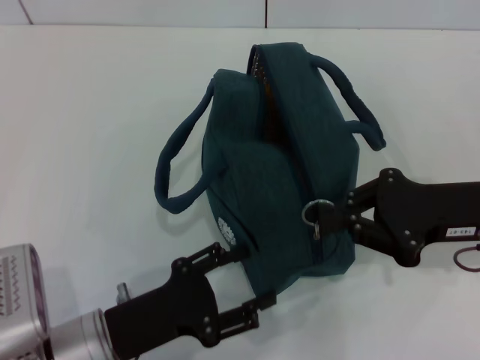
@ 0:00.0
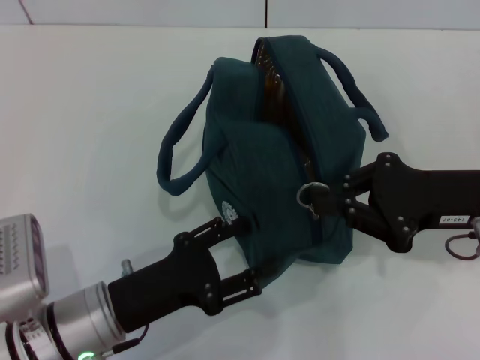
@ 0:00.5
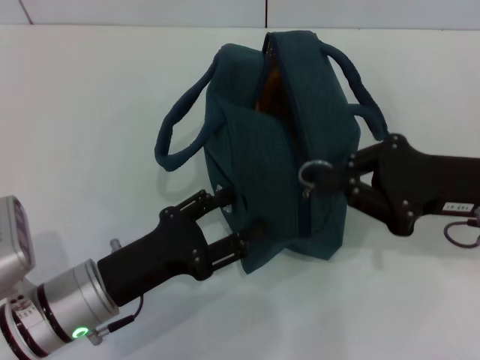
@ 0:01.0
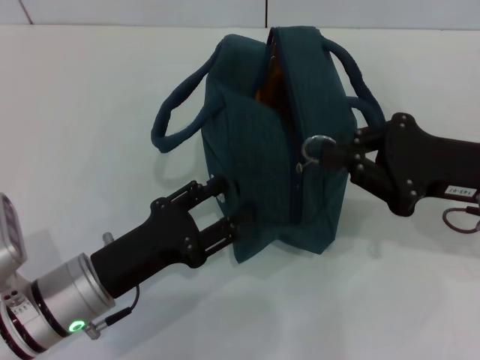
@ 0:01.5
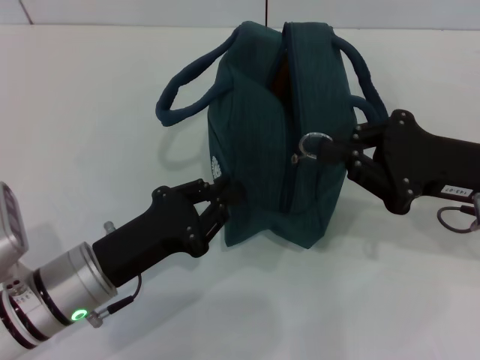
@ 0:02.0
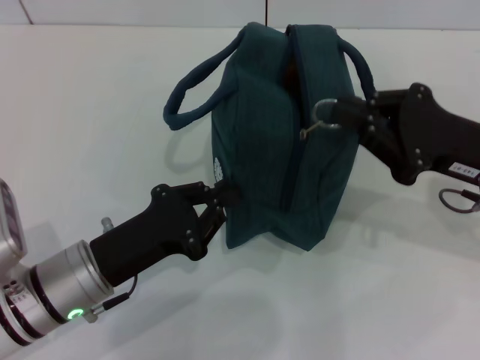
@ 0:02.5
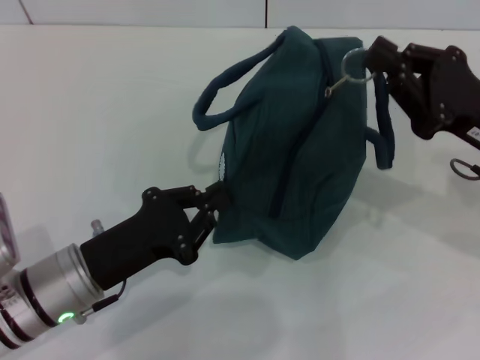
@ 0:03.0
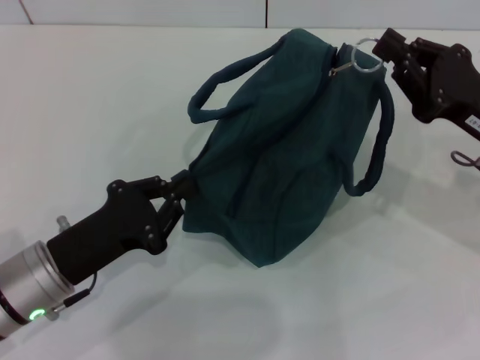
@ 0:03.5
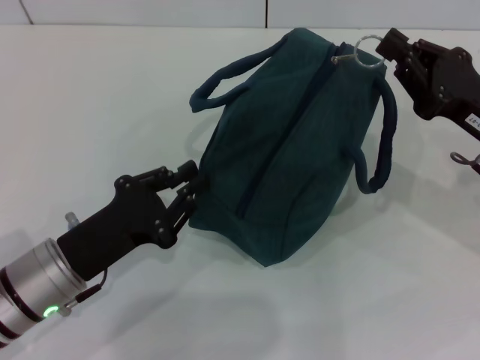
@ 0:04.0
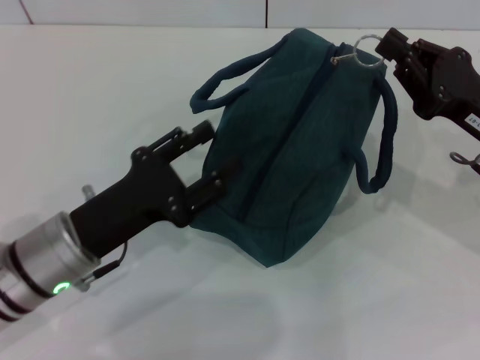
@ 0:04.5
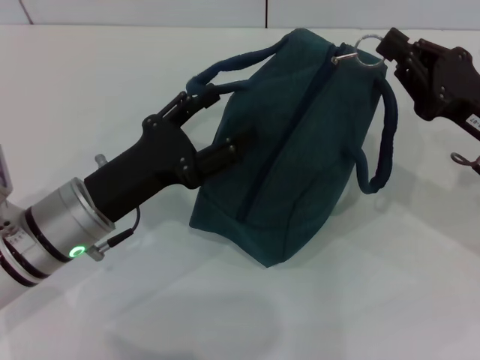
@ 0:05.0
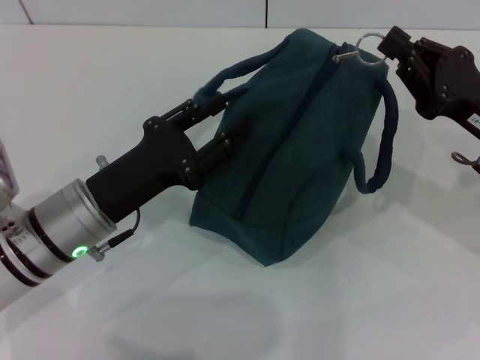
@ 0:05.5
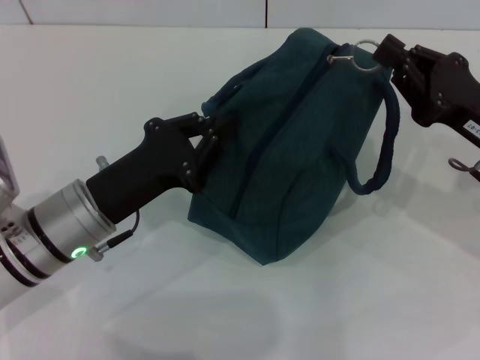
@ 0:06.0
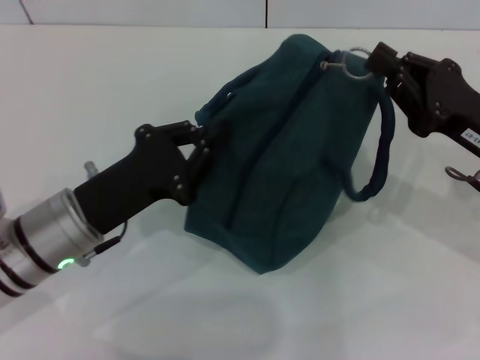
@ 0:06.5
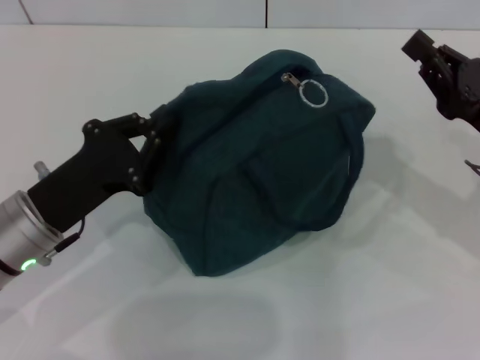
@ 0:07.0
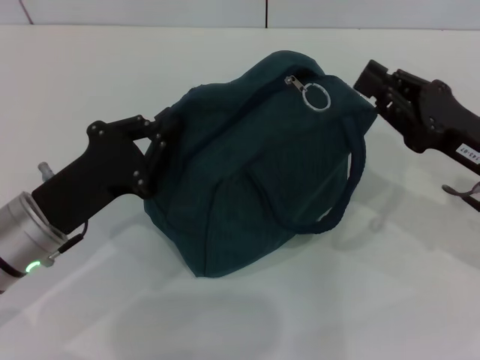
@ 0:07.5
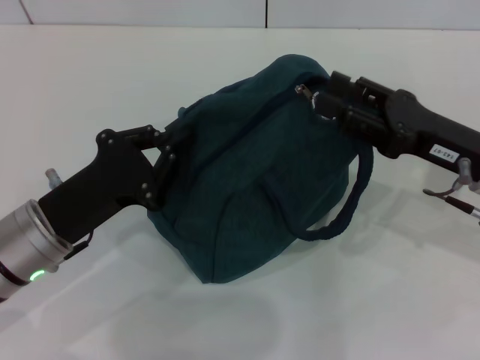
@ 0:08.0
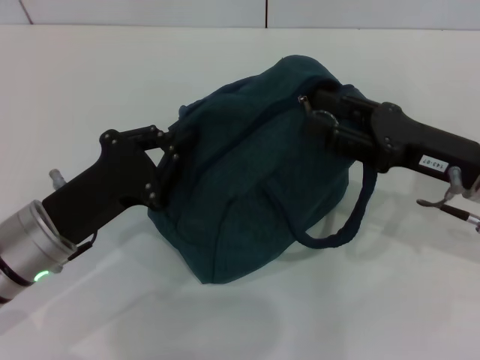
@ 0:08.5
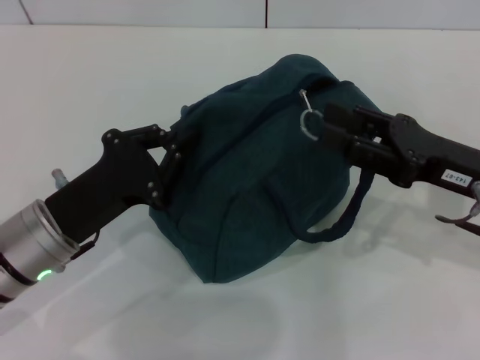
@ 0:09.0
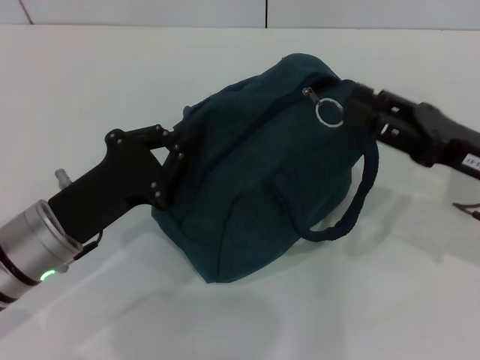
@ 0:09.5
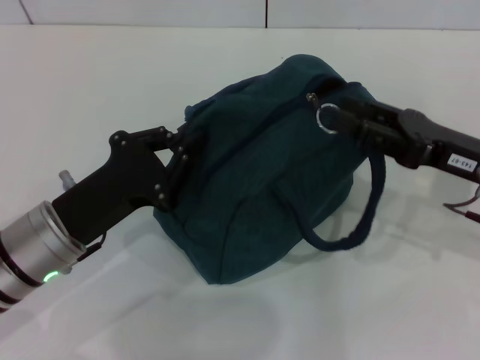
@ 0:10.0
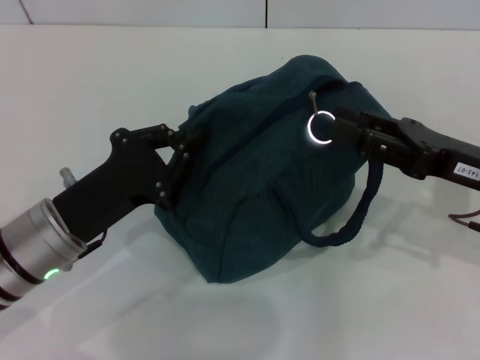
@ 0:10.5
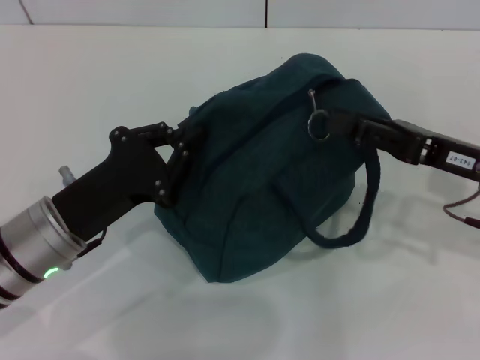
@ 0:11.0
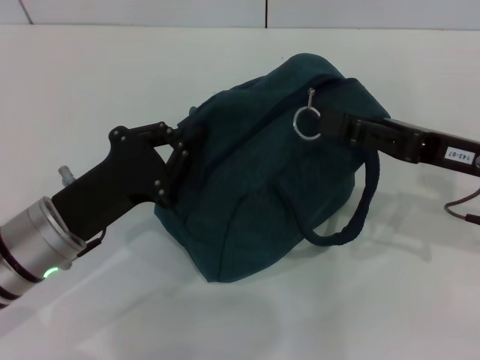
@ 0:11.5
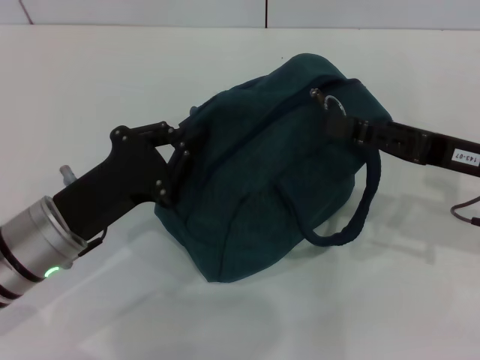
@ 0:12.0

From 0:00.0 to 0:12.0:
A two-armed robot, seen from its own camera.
From 0:00.0 to 0:02.0: The left gripper ends up approximately 5 cm from where it was, and closes.
From 0:04.0 to 0:06.0: The left gripper changes place by approximately 5 cm, and opens and closes again.
From 0:06.0 to 0:08.0: The right gripper opens its fingers.
From 0:08.0 to 0:10.0: The grippers make only small movements.
From 0:10.0 to 0:12.0: The grippers make only small movements.

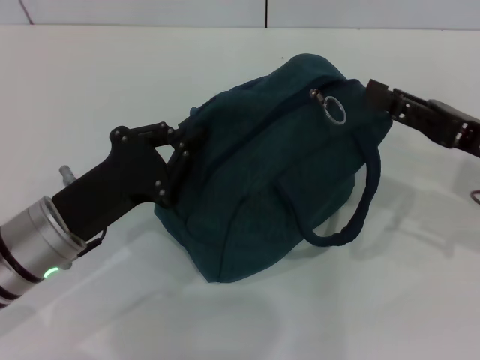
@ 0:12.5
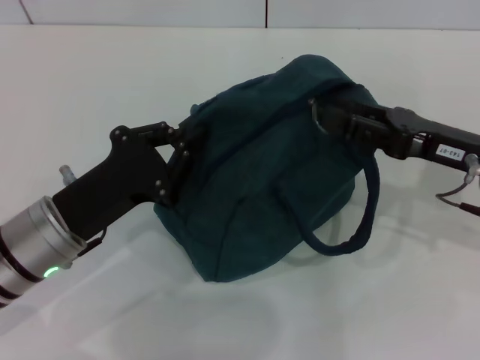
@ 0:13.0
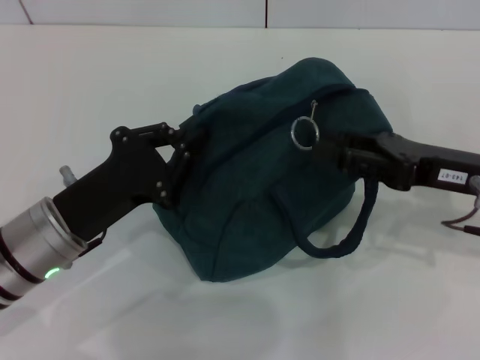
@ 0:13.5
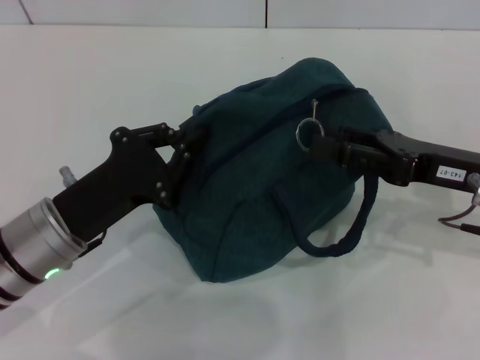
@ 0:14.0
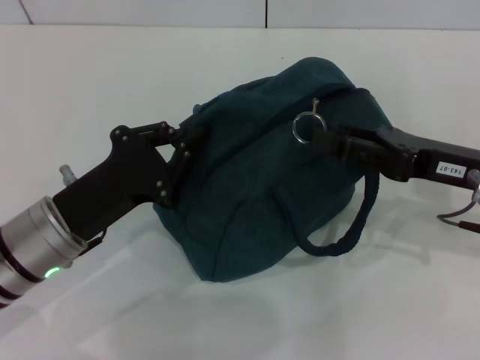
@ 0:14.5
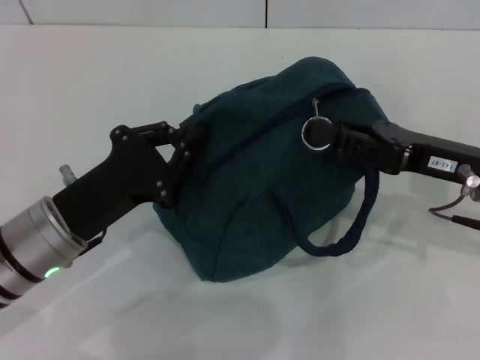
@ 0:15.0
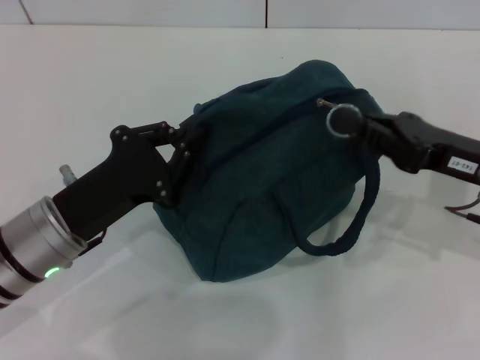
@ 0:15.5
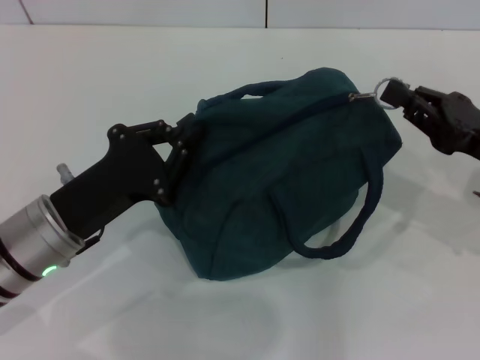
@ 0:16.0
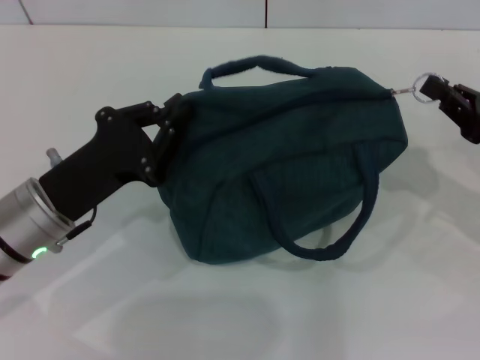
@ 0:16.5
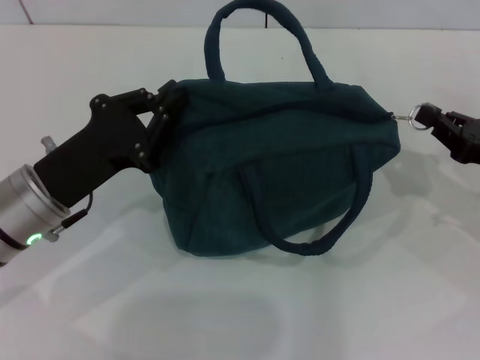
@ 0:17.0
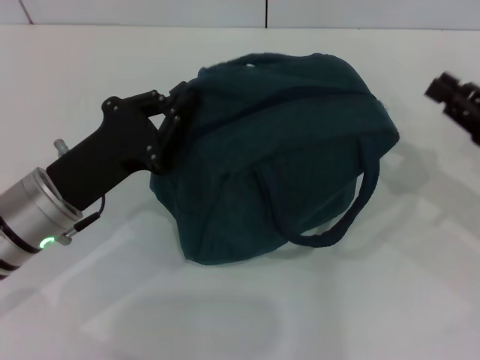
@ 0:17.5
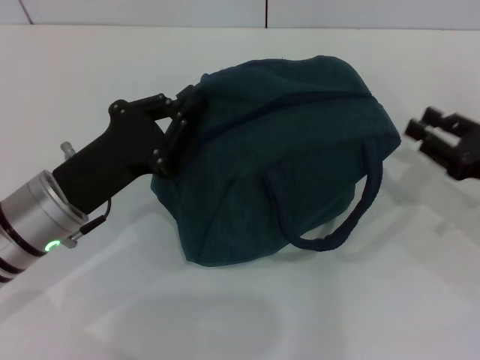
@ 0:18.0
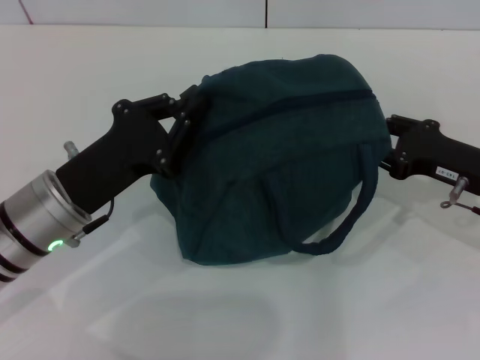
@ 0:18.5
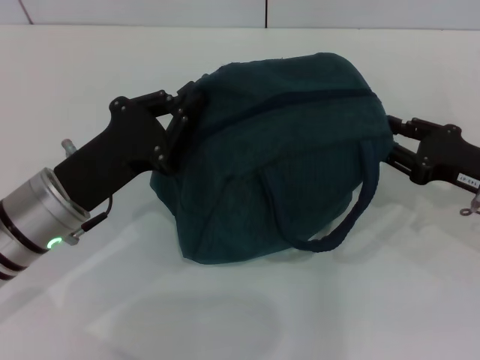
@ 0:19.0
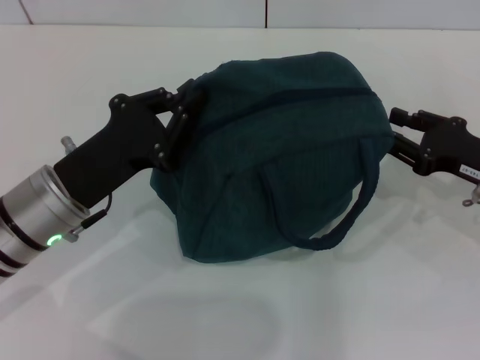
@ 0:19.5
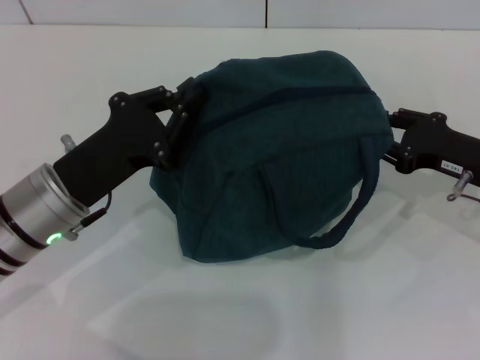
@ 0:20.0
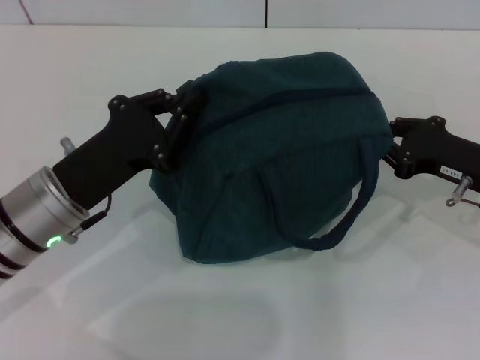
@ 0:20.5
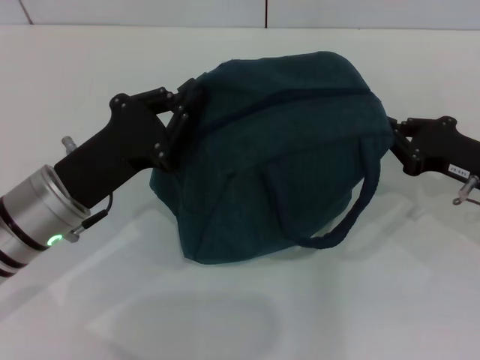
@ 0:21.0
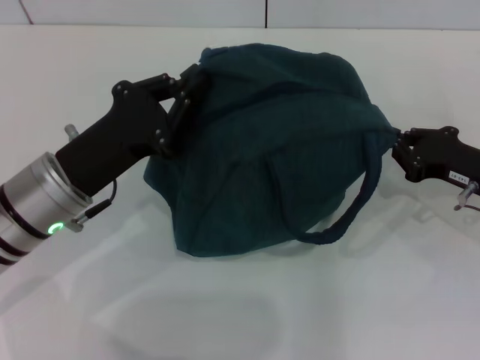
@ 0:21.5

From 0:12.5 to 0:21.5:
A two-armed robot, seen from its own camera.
From 0:12.5 to 0:14.5: There are only small adjustments of the grippers.
From 0:14.5 to 0:17.0: The right gripper goes roughly 10 cm to the right, and closes.
From 0:17.0 to 0:19.5: The right gripper opens.
From 0:19.5 to 0:21.5: The right gripper closes its fingers.

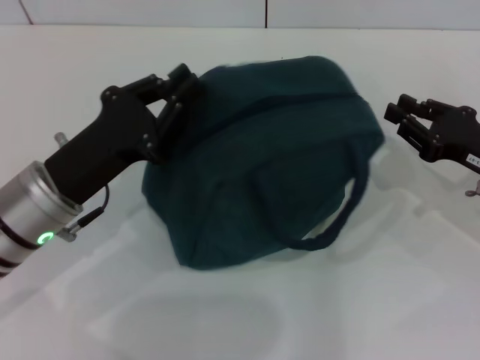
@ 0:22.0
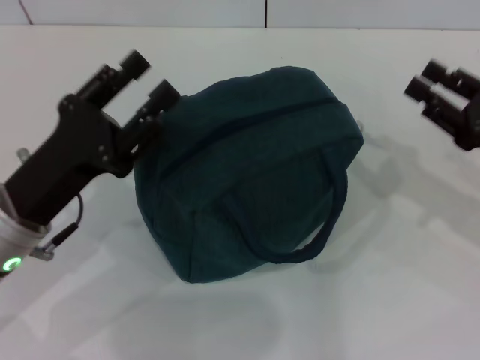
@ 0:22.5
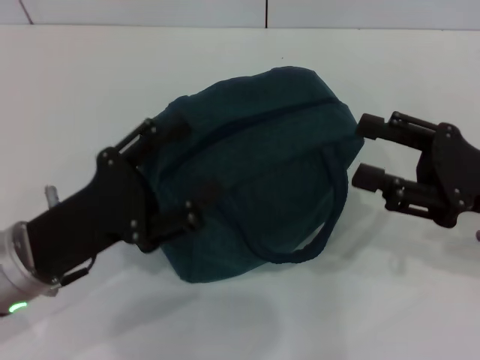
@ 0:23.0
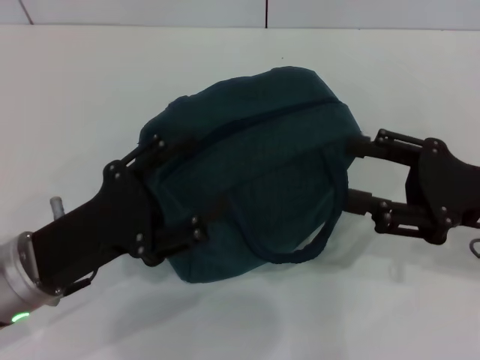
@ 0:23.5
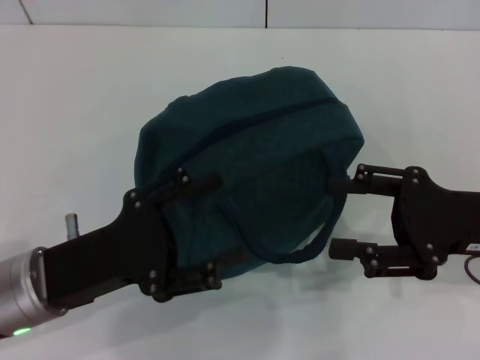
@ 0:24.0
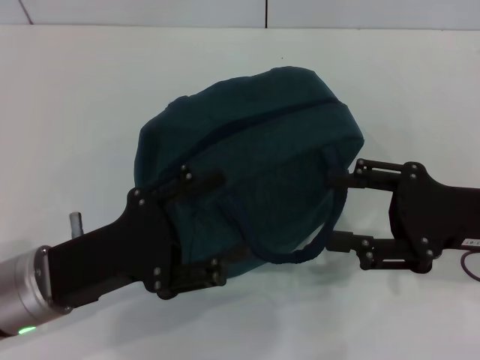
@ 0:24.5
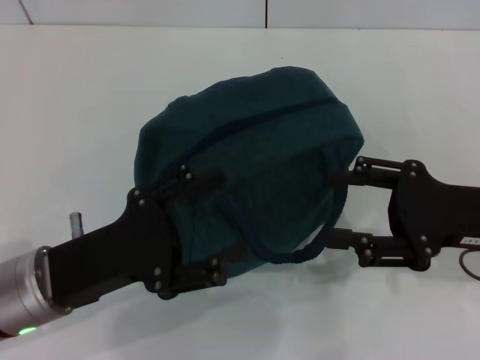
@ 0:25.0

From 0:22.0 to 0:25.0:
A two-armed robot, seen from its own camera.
From 0:22.0 to 0:23.5: The right gripper changes place by approximately 5 cm, and opens its fingers. Meanwhile the left gripper is displaced backward by about 5 cm, and opens its fingers.
From 0:23.5 to 0:25.0: The grippers move only a little.
